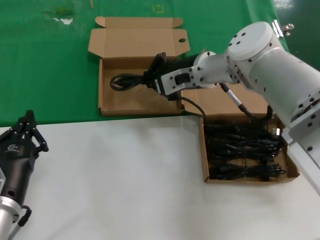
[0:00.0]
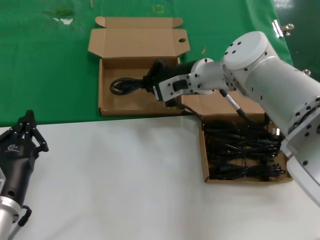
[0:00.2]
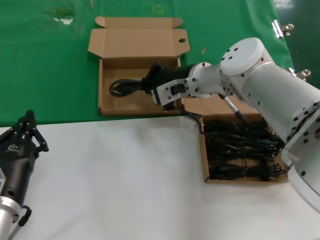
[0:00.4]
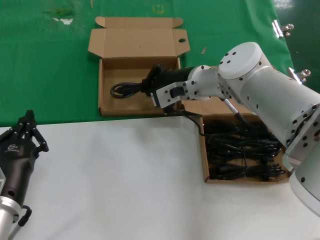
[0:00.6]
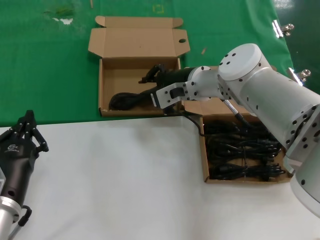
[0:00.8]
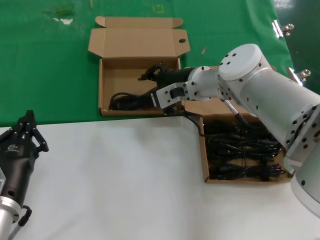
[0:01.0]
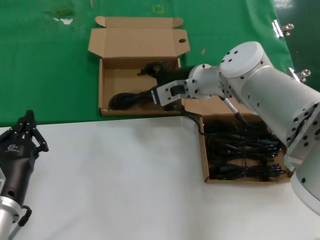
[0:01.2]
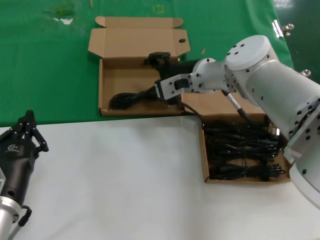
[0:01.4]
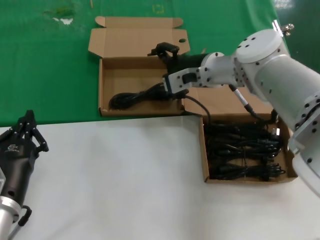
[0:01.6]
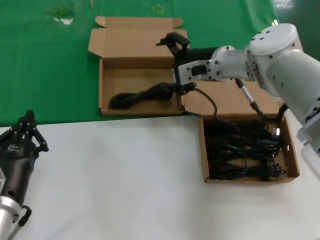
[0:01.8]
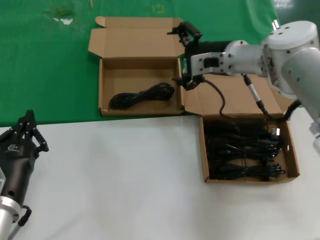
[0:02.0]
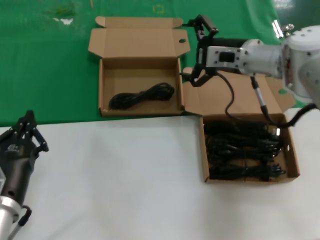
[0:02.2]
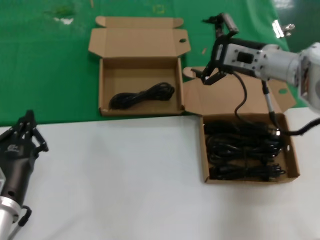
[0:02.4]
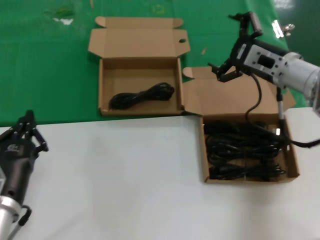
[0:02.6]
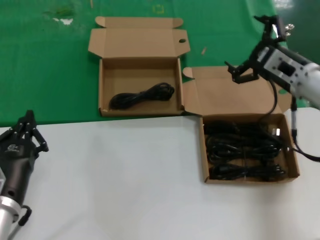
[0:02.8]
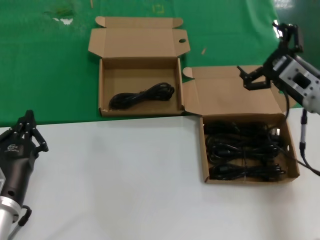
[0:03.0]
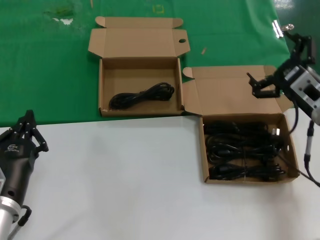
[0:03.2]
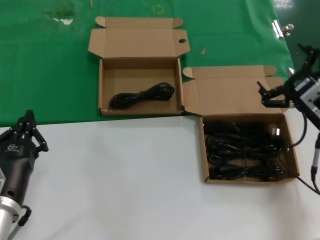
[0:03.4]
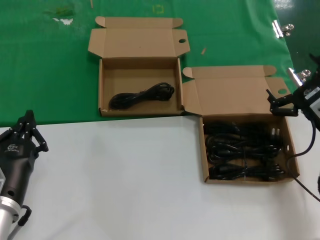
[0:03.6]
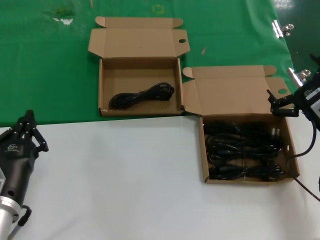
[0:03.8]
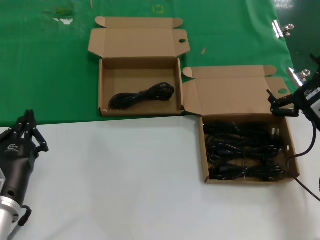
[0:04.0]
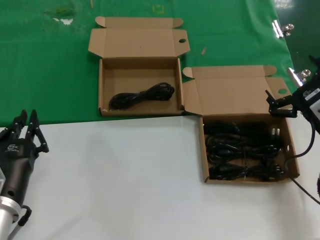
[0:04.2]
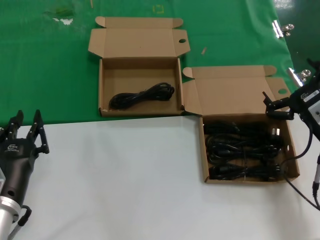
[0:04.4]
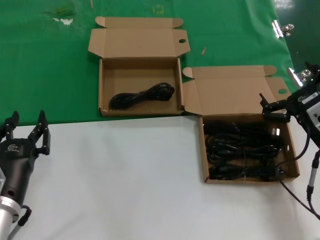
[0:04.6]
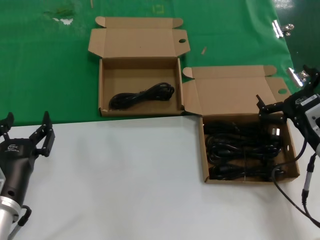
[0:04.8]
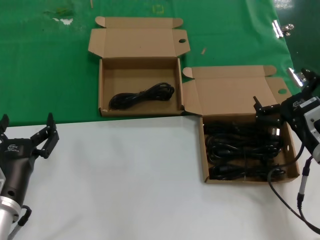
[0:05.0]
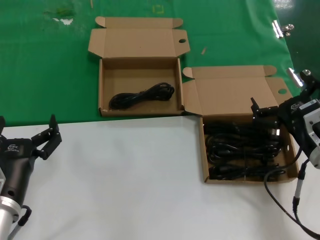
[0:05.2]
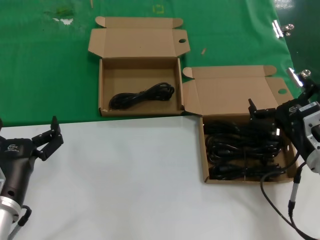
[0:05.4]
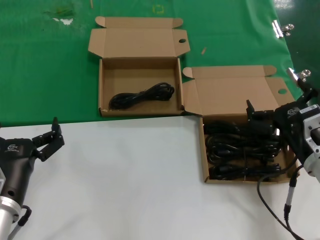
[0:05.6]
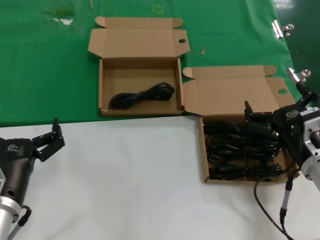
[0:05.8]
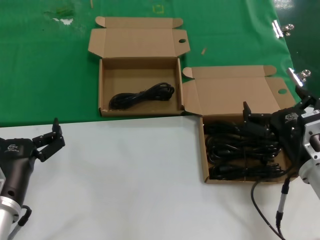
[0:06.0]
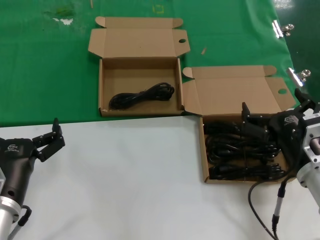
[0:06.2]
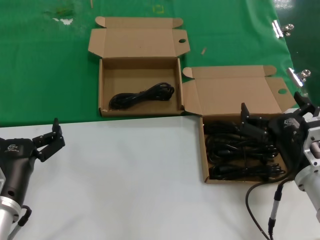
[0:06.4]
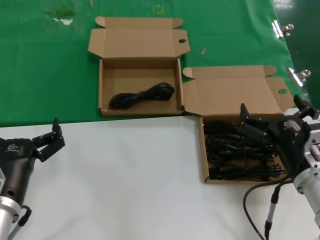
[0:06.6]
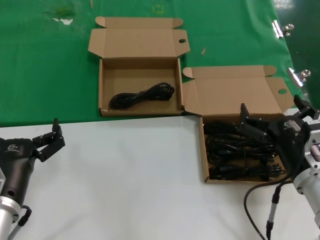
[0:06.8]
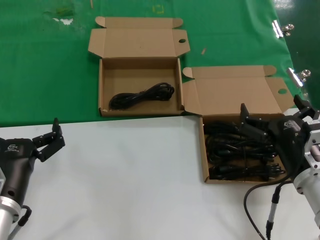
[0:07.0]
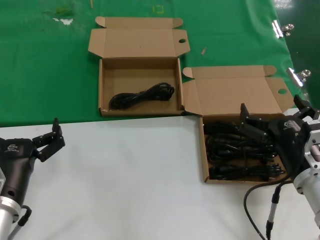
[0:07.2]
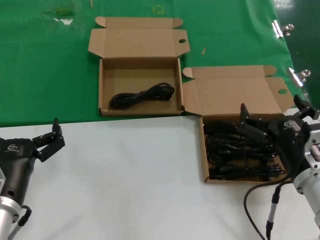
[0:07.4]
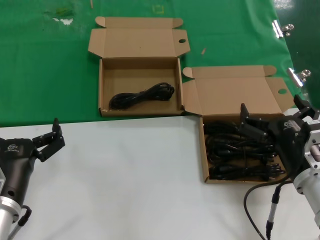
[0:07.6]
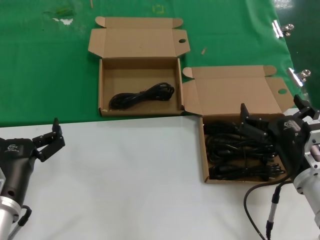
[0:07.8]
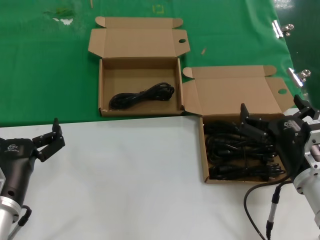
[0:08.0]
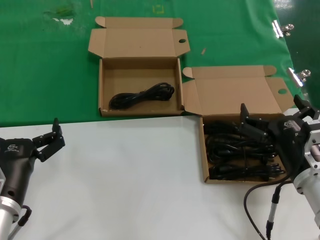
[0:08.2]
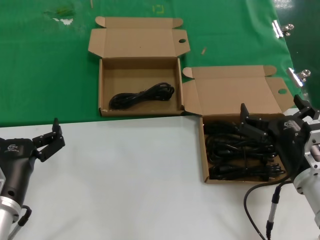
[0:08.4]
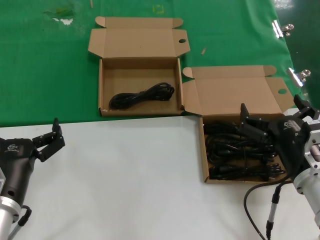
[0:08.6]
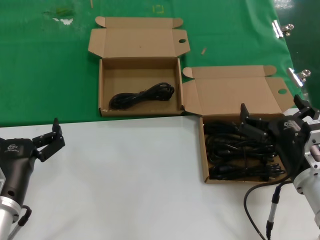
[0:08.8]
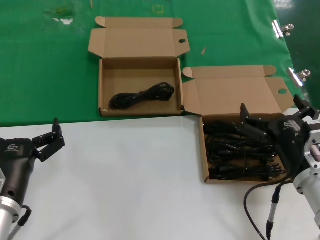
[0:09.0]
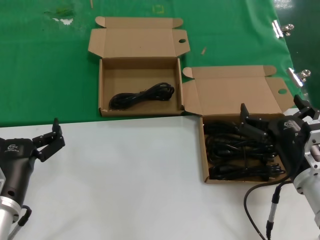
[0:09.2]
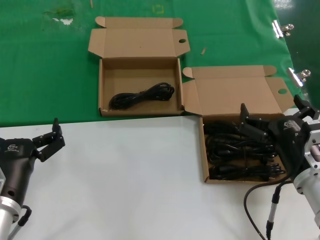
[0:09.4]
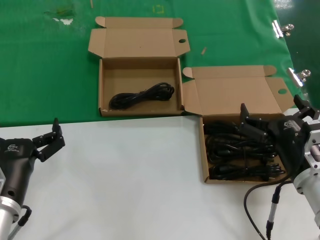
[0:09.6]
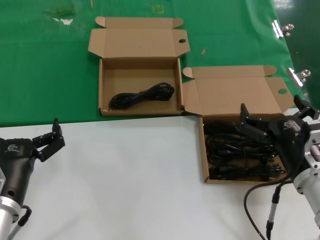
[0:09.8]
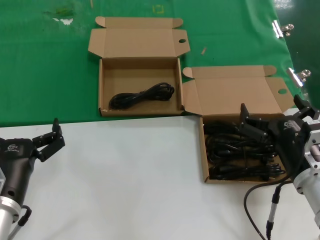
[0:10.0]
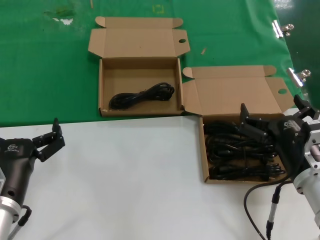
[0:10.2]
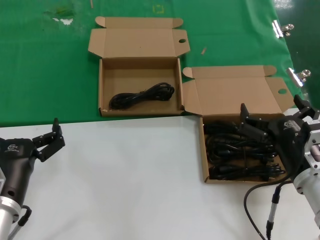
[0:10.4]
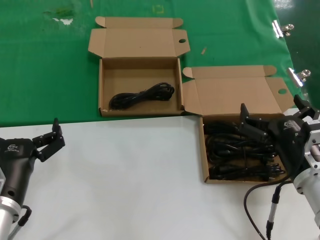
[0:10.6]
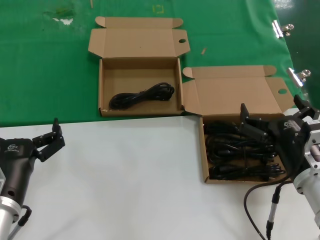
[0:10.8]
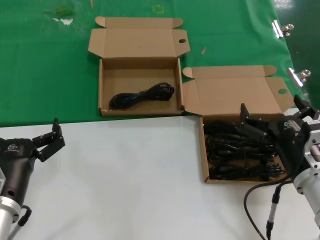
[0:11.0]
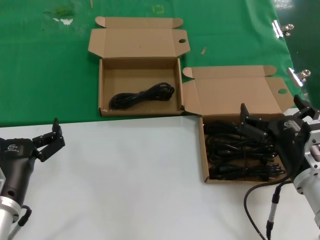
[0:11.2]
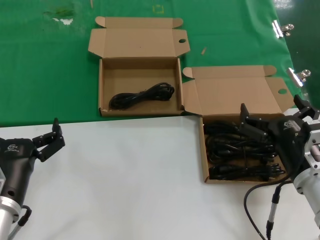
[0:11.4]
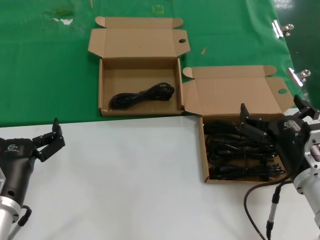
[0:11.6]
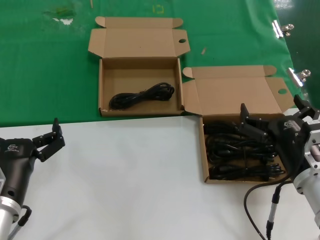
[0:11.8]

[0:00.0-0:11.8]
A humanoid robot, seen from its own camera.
Task of the whole recording: take the parts from the box containing them and put them into an empty box.
0:00.0 to 0:01.4: The hands make only small movements.
0:01.4 to 0:03.0: The right hand is displaced to the right and backward by approximately 20 cm.
0:03.0 to 0:04.4: The right hand moves backward and downward, about 10 cm.
0:04.4 to 0:06.0: The right hand shifts approximately 10 cm to the left and backward.
0:06.0 to 0:07.4: The hands move only a little.
0:07.4 to 0:11.8: Both hands stay about where they are.
